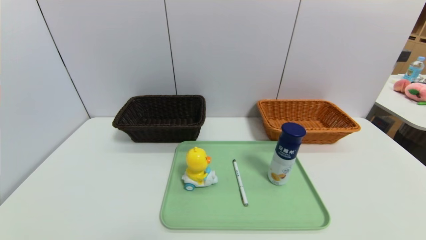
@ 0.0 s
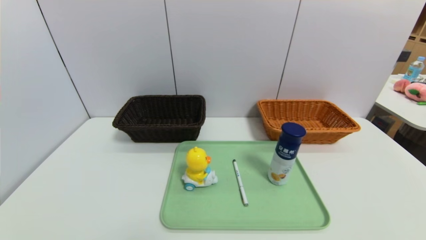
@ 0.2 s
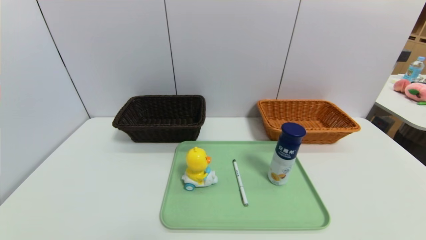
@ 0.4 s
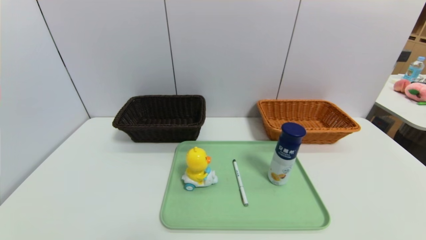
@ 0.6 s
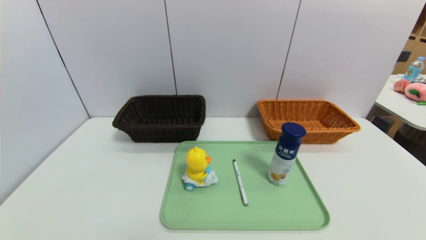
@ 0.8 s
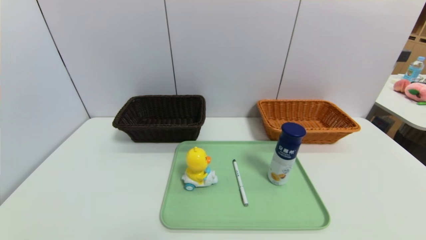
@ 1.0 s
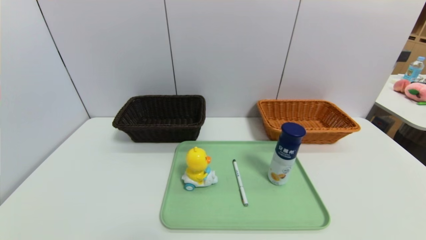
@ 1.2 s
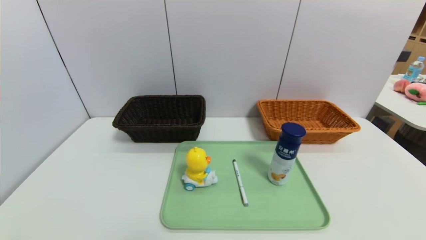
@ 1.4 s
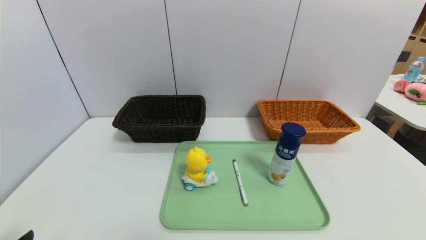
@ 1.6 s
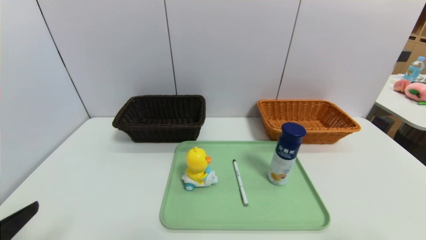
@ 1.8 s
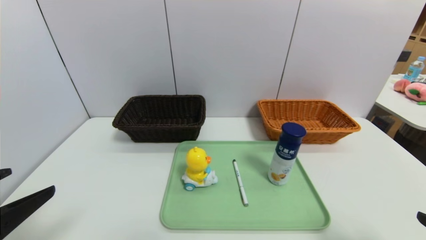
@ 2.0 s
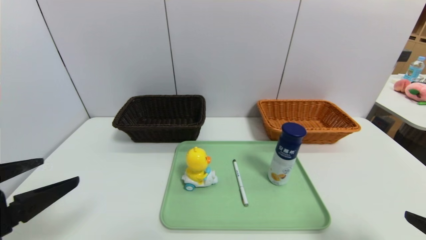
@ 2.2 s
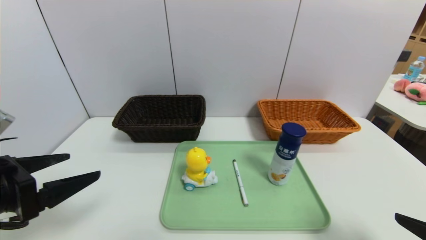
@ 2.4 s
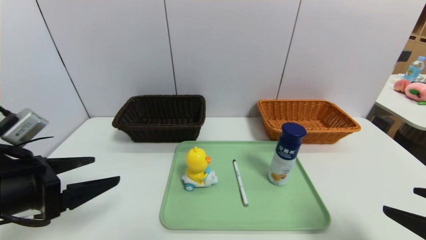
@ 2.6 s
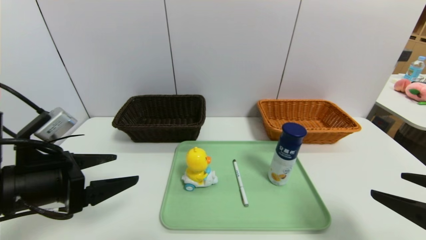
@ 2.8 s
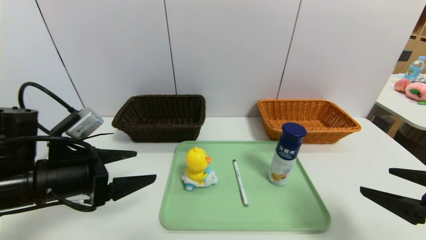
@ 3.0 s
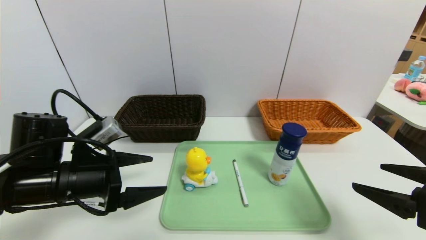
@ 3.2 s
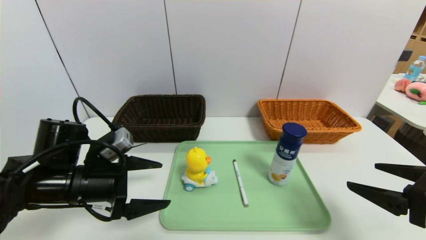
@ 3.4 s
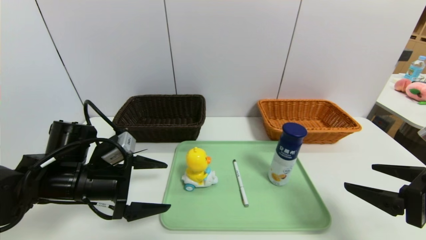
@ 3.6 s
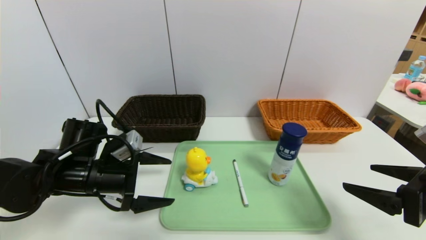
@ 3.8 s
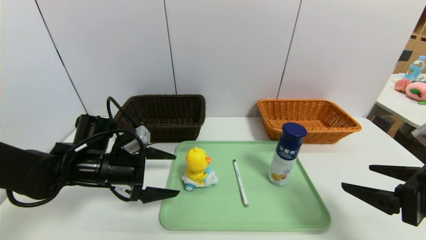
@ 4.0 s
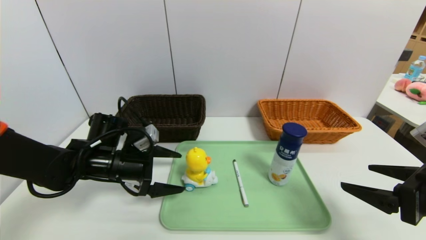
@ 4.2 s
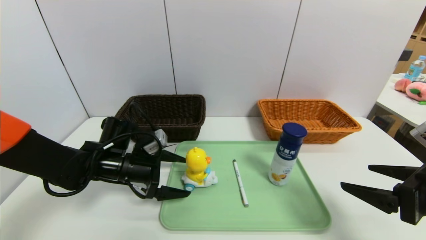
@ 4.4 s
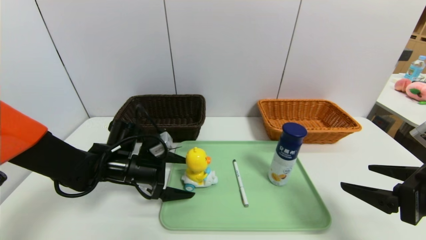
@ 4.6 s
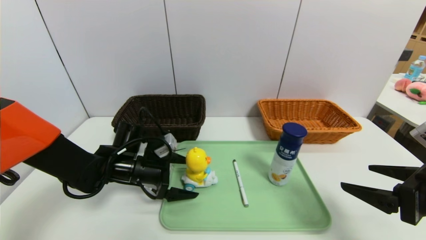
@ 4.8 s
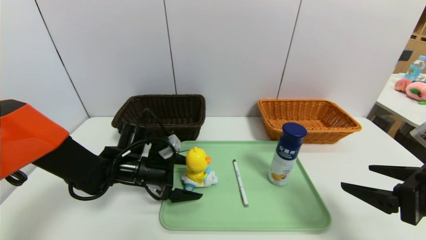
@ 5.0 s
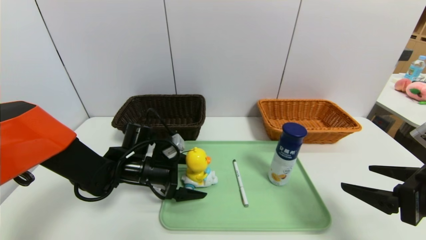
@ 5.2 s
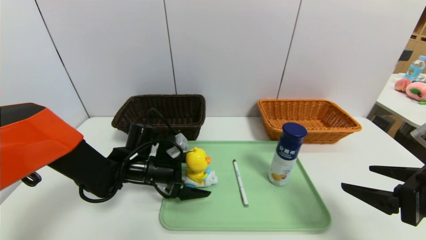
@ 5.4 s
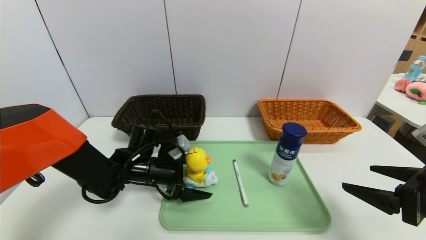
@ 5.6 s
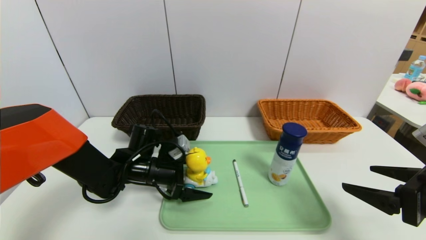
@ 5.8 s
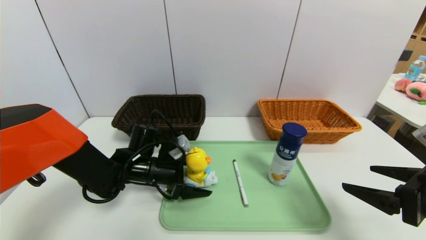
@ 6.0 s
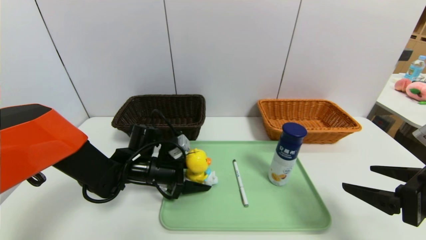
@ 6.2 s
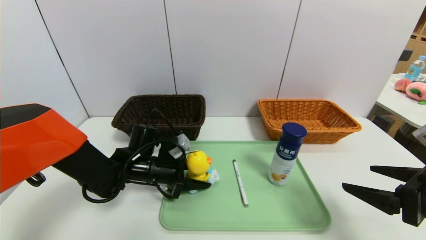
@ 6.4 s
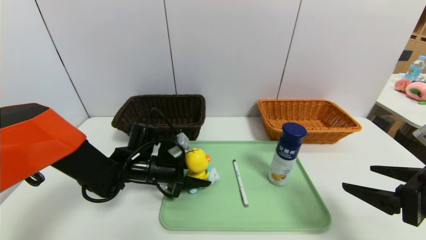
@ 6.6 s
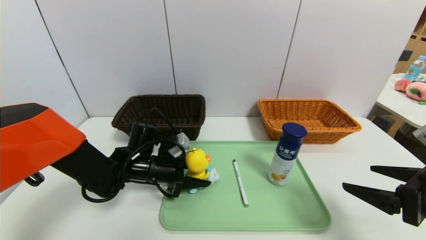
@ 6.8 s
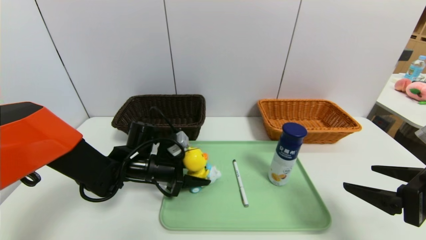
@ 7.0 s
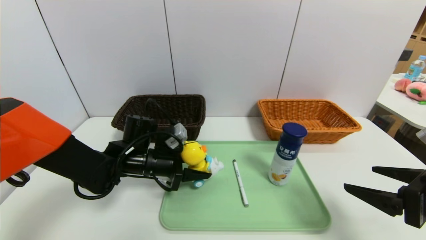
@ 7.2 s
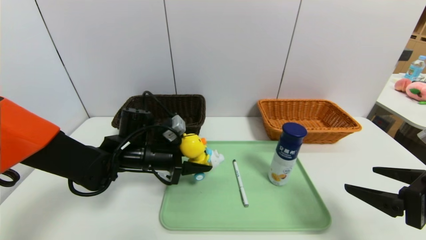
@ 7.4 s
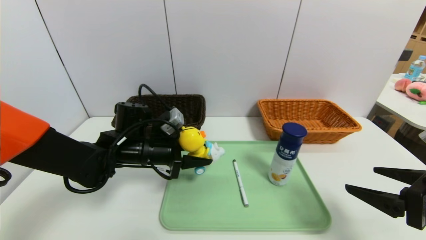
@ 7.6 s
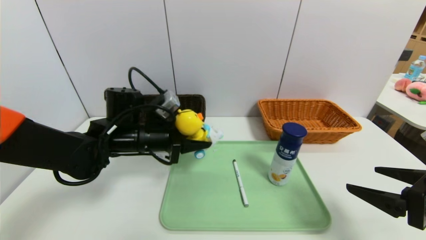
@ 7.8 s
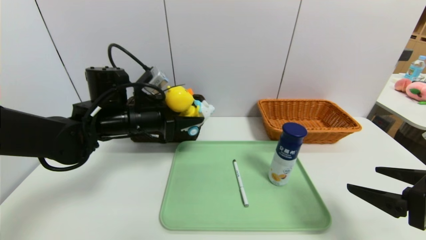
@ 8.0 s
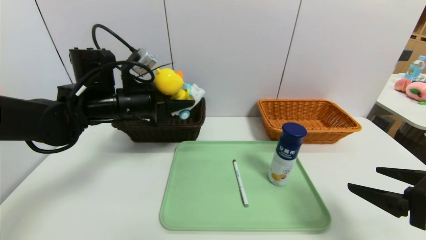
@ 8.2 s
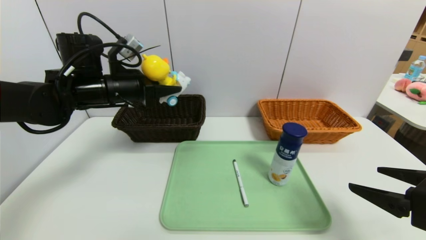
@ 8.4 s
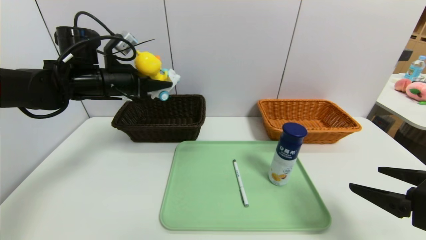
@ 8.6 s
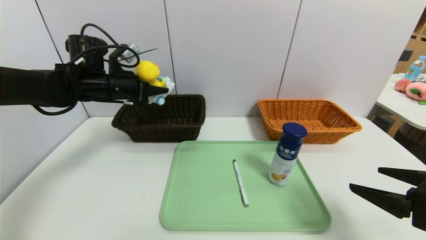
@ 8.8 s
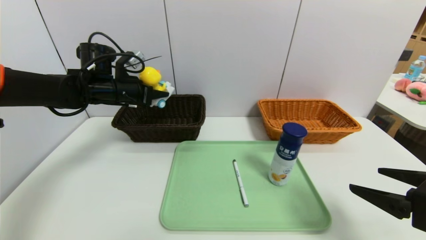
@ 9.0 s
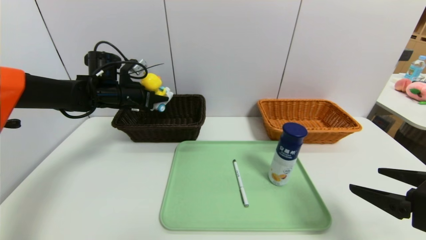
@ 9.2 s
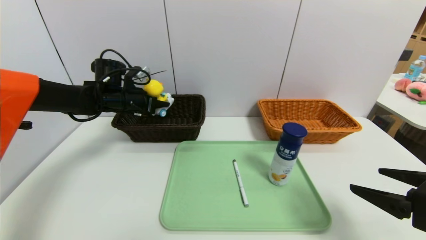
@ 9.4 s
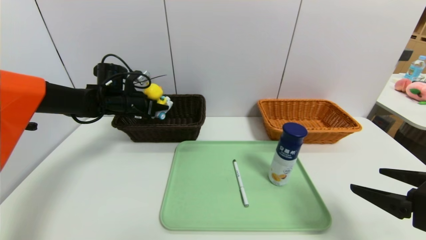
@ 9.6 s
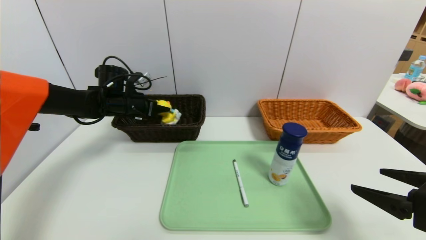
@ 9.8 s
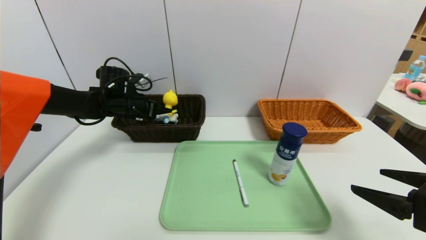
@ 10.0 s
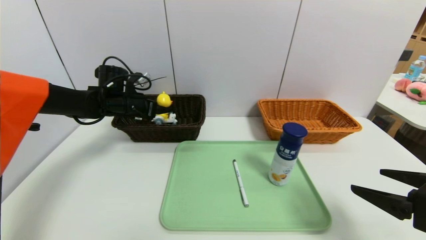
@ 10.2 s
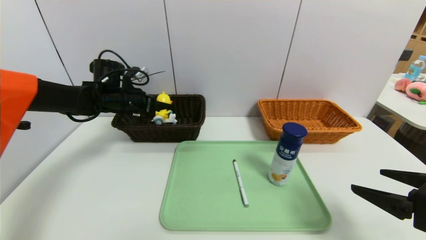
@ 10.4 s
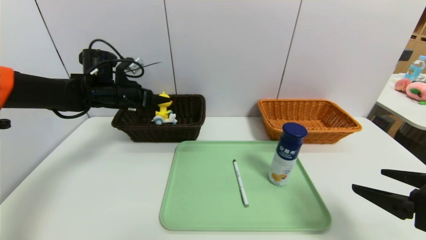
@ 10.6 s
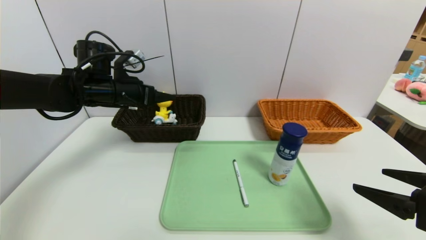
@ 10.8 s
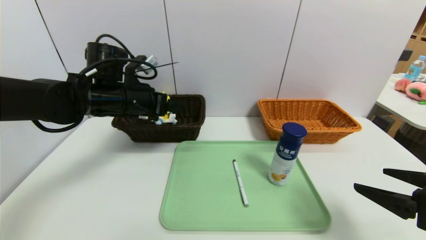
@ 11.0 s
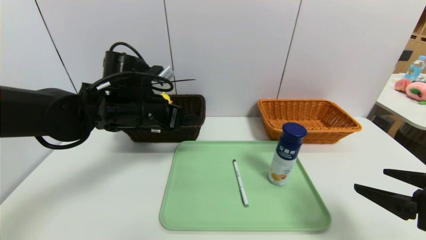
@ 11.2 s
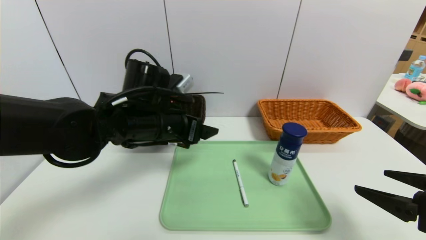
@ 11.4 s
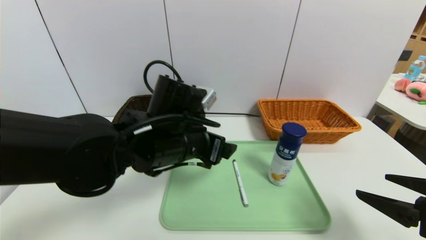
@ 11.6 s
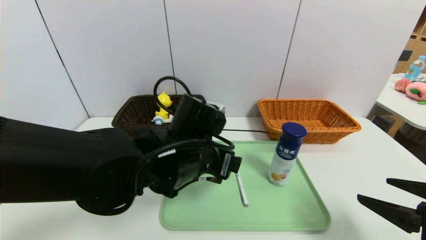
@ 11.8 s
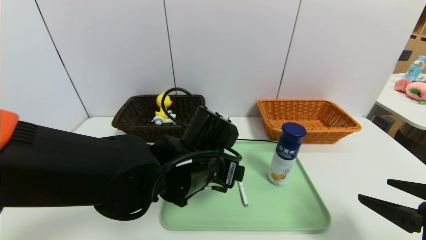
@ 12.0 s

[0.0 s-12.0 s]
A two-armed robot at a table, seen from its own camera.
Task of the whole recording: place the food in the right basket with the right gripper, and place the non food items in the left basket with the left gripper.
Step, 0.0 to 10.2 s: Grasp the yellow duck and put it in the left basket.
1.6 to 3.0 s: The right gripper shifts about 10 cm forward, while the left gripper shifts roughly 20 cm forward.
3.0 to 4.4 s: The left gripper travels forward and downward by about 15 cm.
4.4 to 6.0 s: The left gripper changes place by about 5 cm.
6.0 to 7.6 s: The left gripper heads upward, covering about 5 cm, and closes up.
7.6 to 9.0 s: The left gripper shifts about 15 cm forward, to the left and upward.
9.0 to 10.4 s: The left gripper opens its fingers.
10.4 to 12.0 s: The left gripper shifts about 30 cm to the right and backward.

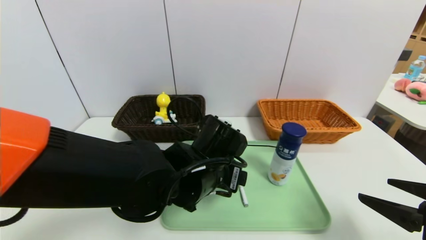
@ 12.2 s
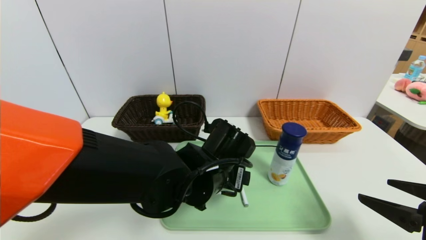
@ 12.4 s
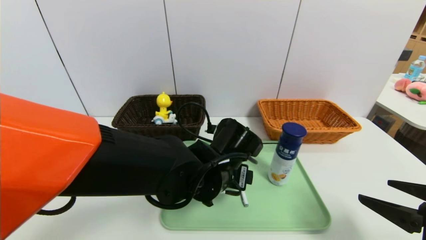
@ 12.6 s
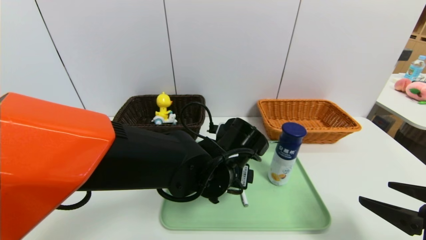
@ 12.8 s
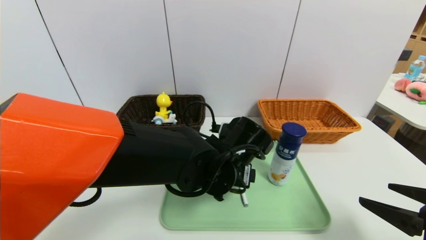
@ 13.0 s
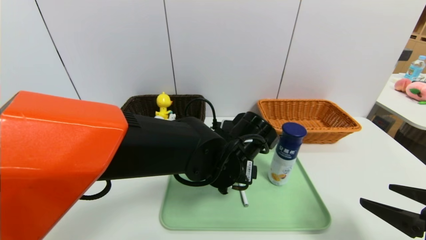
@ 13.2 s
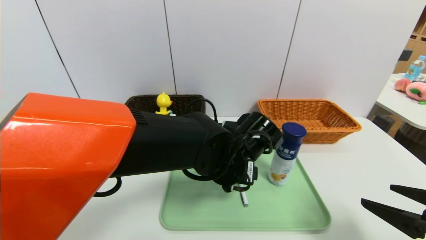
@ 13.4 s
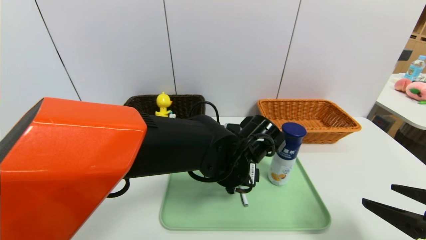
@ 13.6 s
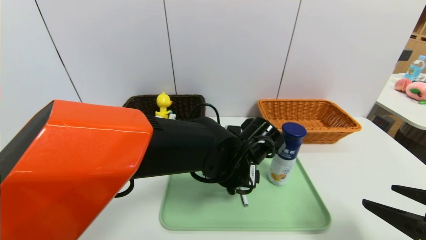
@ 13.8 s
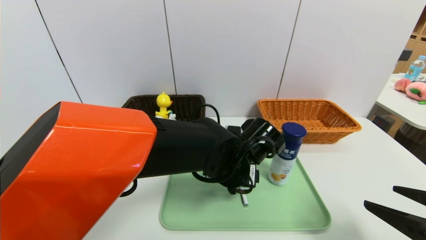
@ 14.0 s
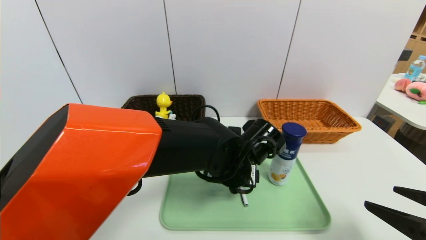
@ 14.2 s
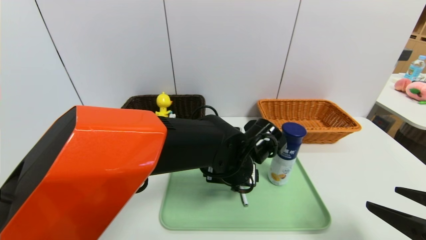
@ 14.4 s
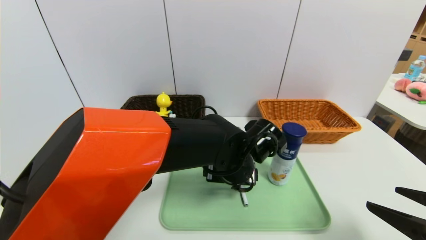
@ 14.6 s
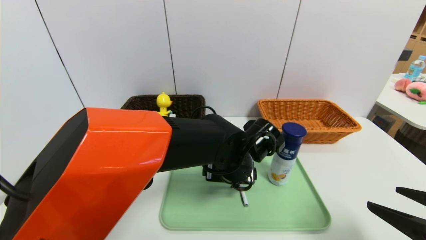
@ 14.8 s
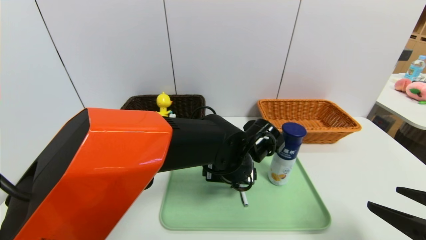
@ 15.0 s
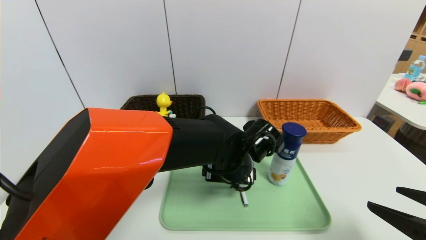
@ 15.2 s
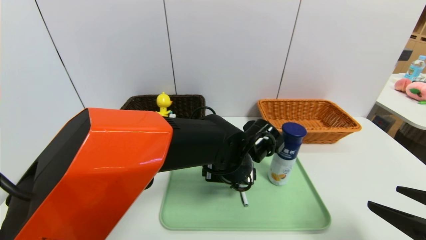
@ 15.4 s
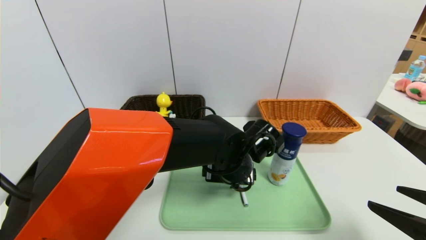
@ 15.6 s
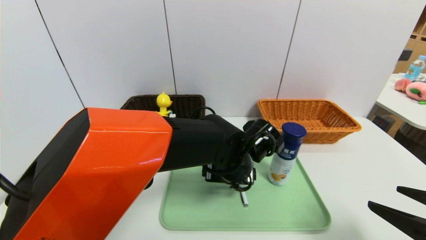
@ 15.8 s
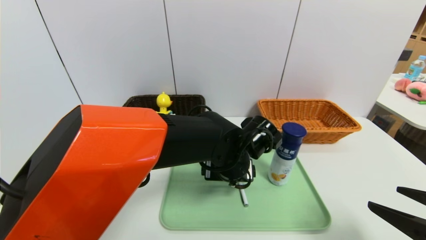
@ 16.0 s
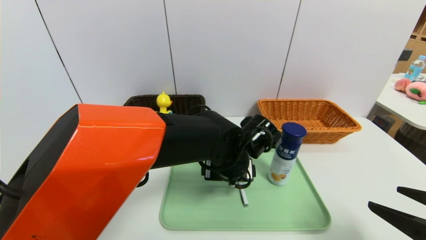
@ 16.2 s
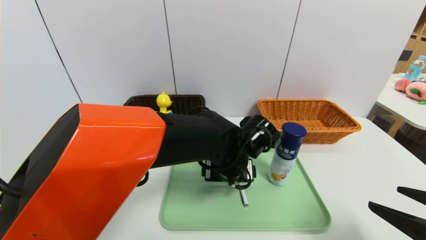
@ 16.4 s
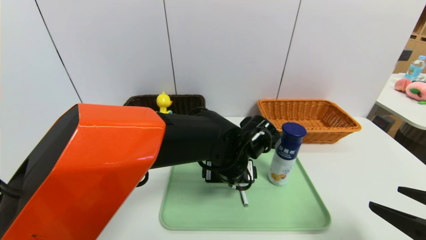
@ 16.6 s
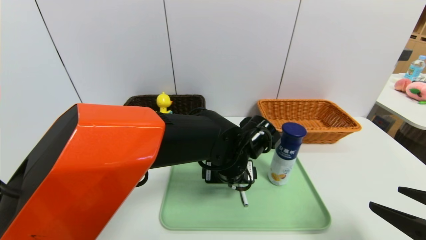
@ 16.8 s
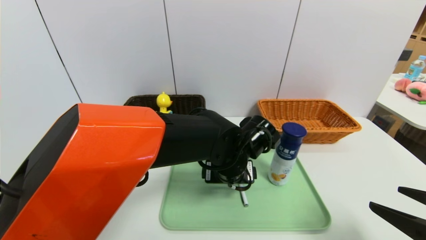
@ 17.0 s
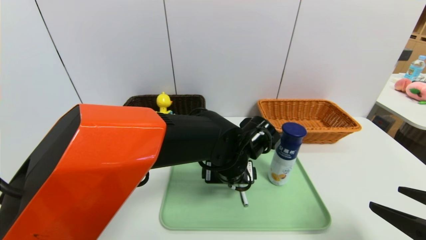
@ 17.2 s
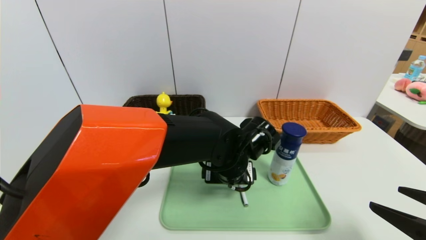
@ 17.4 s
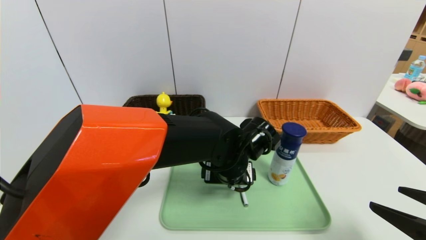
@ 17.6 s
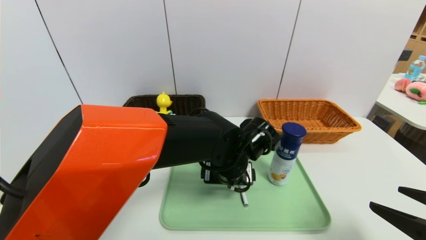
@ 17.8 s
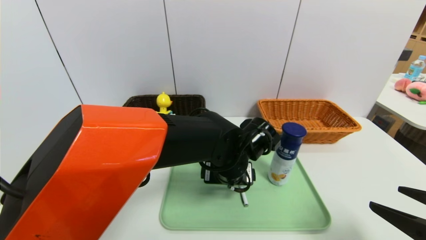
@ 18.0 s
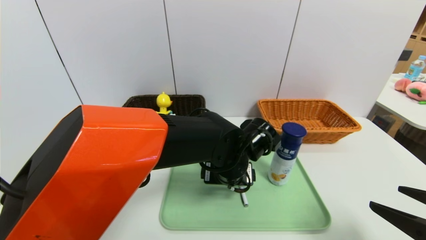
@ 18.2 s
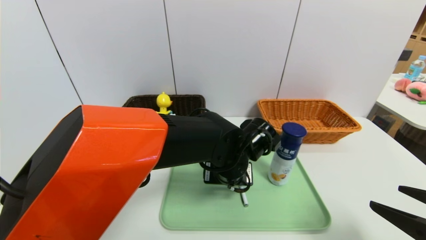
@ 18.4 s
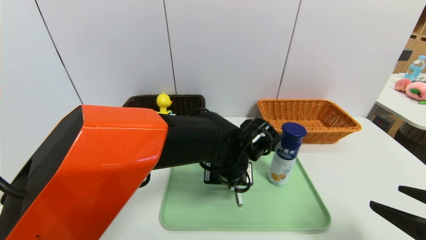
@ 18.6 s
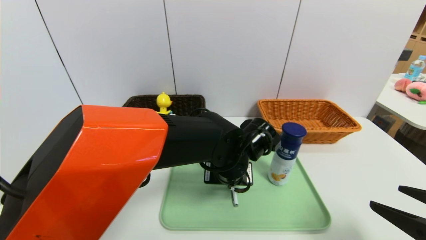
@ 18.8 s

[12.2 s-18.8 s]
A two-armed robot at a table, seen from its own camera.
Task of the whole recording: place the food in the right basket with the right gripper, and place the non food items in the left basket with the left gripper.
12.2 to 13.8 s: The left gripper heads to the right, covering about 5 cm.
13.8 to 17.2 s: The grippers make only small movements.
17.2 to 18.8 s: The left gripper closes its fingers.
